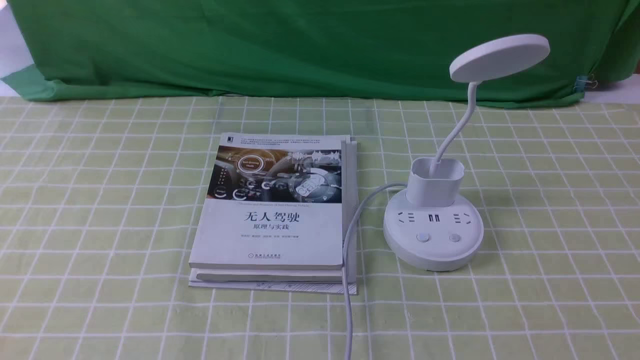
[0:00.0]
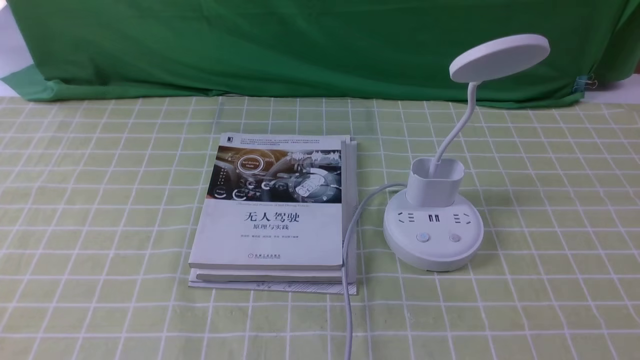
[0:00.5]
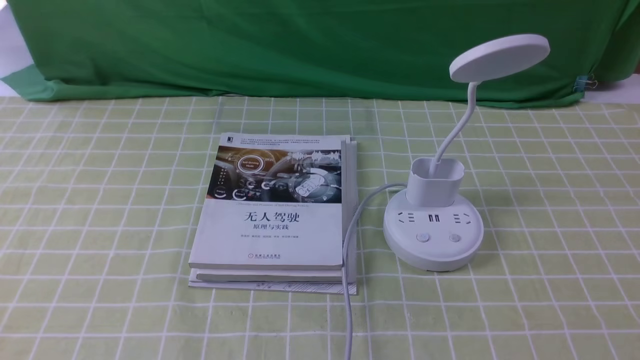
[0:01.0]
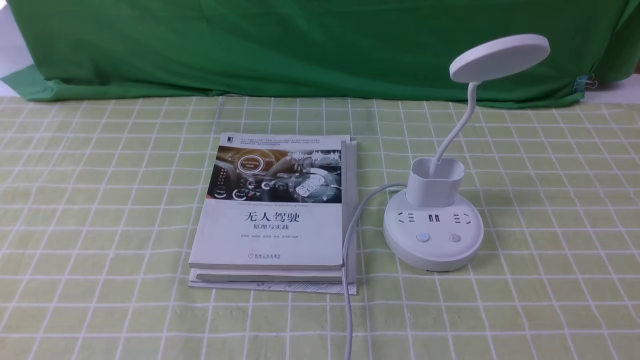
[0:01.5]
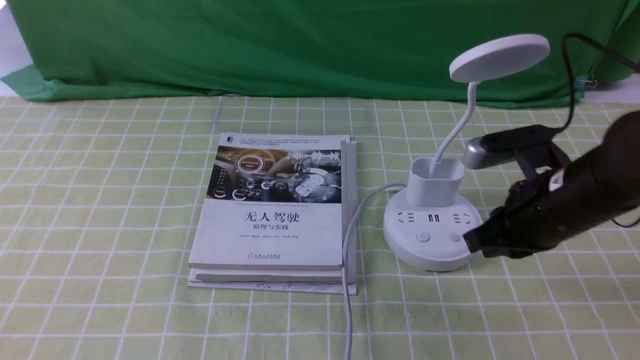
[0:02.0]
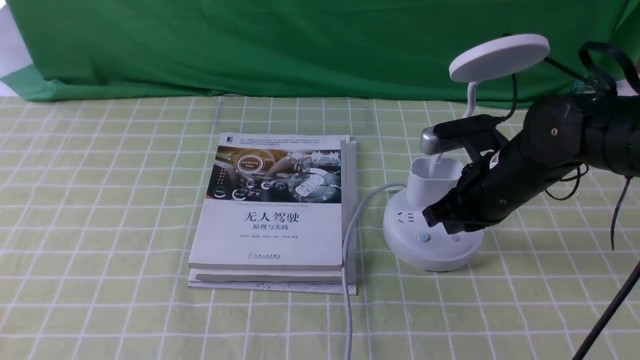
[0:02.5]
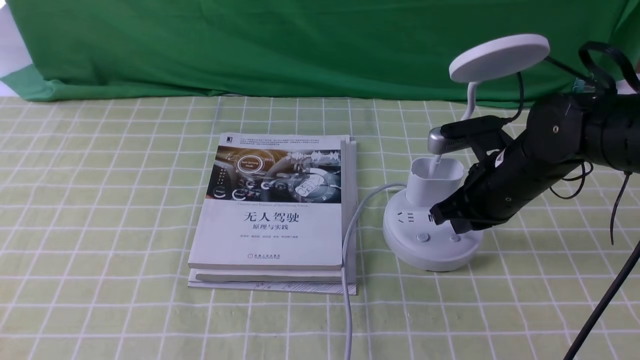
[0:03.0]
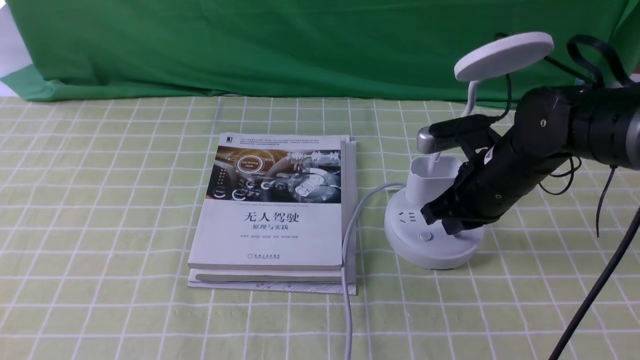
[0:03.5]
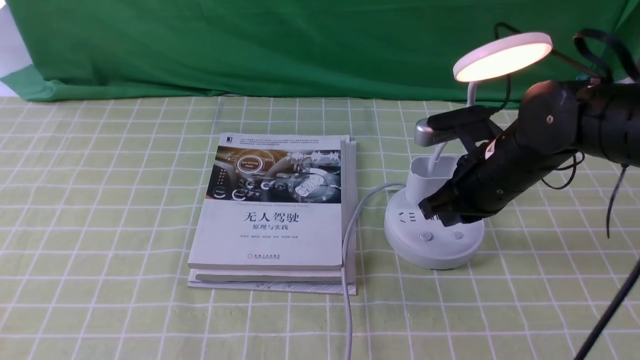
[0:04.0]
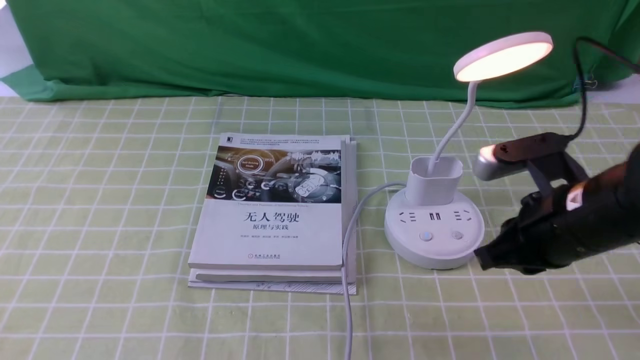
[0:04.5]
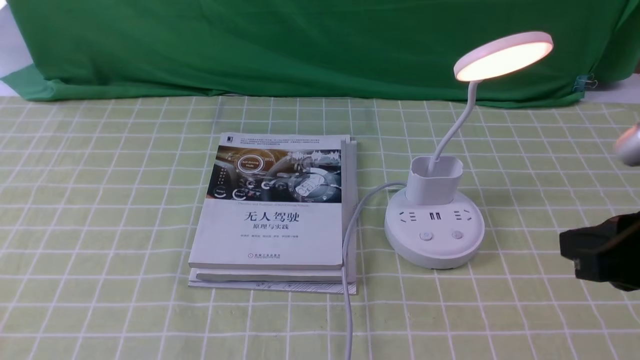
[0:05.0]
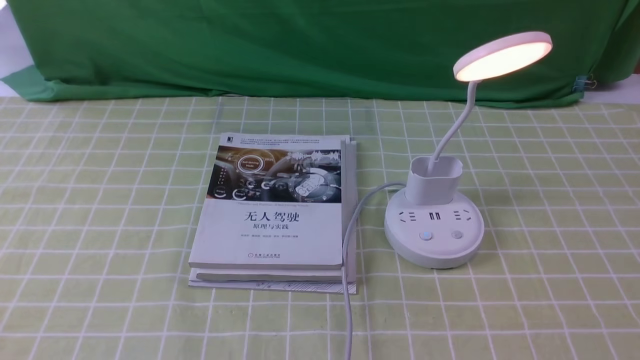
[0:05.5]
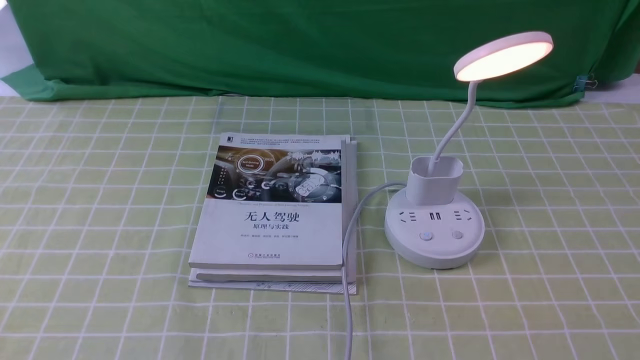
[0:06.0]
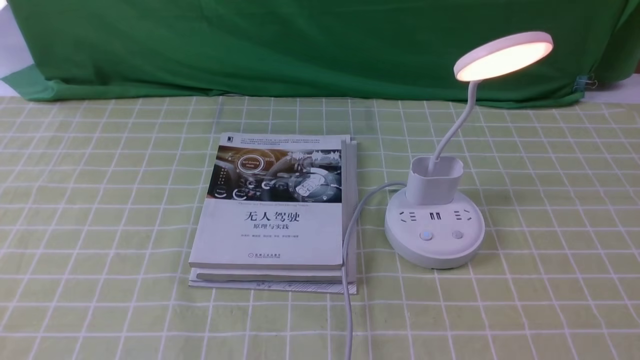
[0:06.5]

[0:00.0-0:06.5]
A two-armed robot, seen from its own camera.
Step, 0:00.0 to 0:04.0: use the right arm to press the button switch on the lamp holder.
0:00.0 to 0:02.0: The right gripper goes approximately 25 cm forward and to the left, and closes up.
0:04.5 to 0:06.5: The right gripper goes approximately 20 cm backward and to the right.
